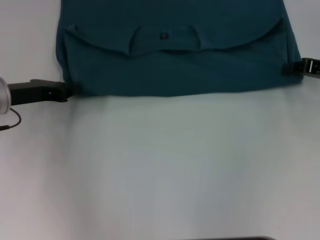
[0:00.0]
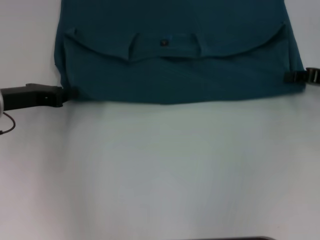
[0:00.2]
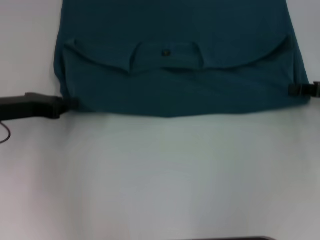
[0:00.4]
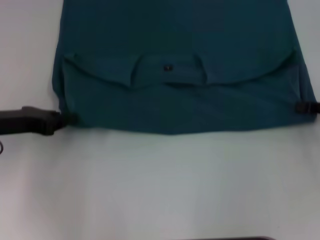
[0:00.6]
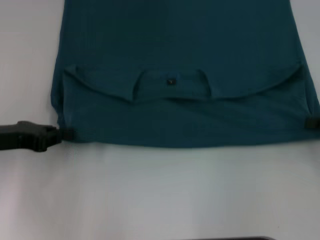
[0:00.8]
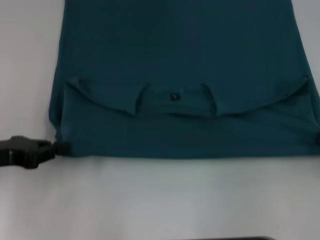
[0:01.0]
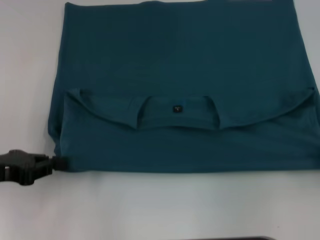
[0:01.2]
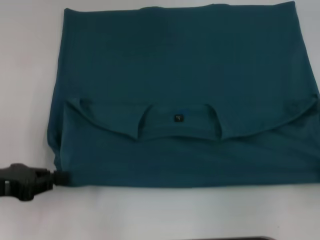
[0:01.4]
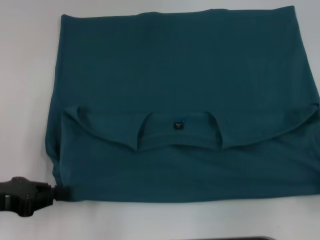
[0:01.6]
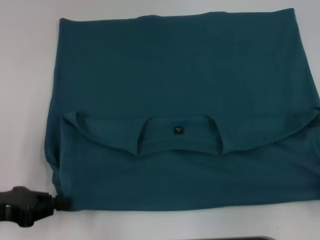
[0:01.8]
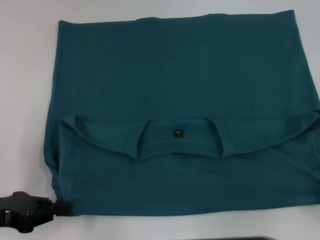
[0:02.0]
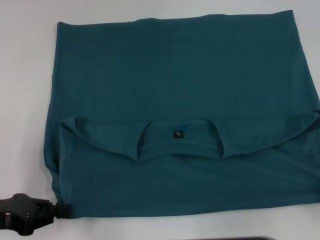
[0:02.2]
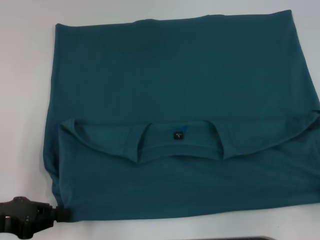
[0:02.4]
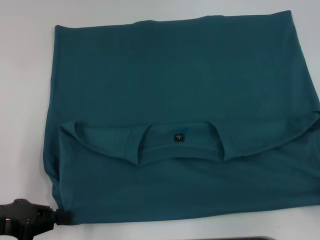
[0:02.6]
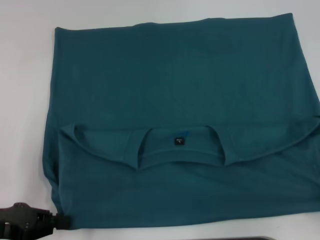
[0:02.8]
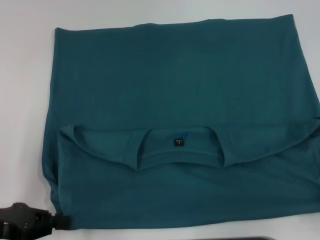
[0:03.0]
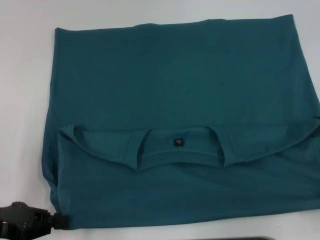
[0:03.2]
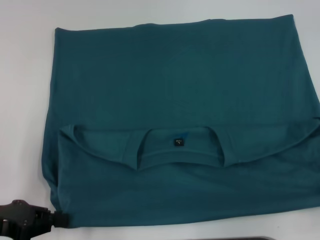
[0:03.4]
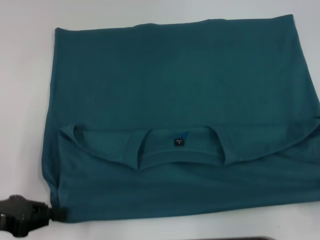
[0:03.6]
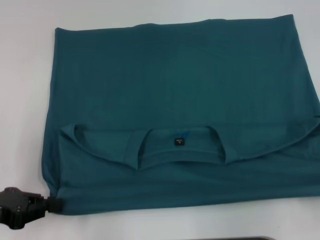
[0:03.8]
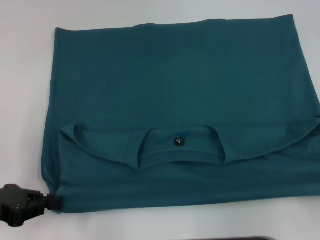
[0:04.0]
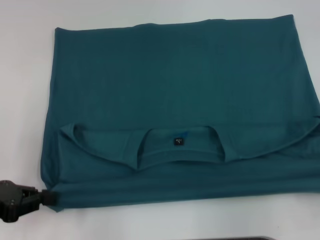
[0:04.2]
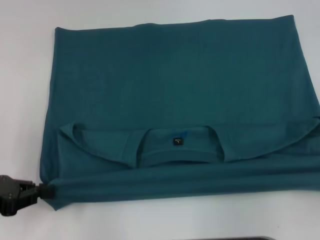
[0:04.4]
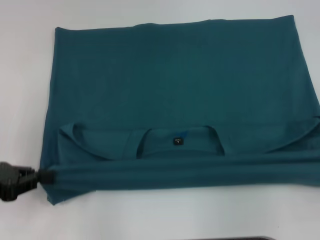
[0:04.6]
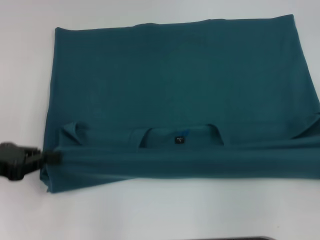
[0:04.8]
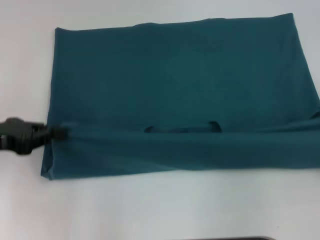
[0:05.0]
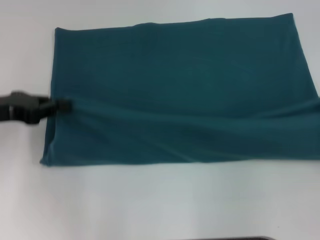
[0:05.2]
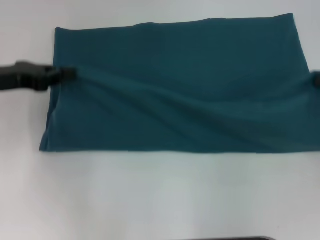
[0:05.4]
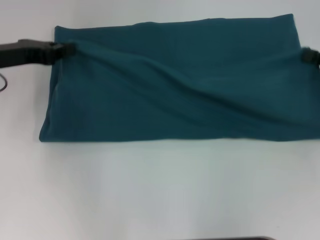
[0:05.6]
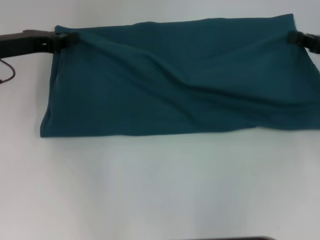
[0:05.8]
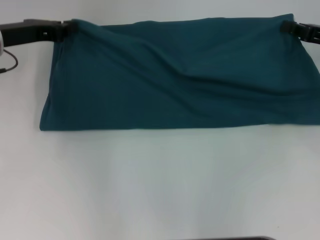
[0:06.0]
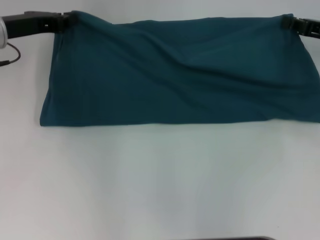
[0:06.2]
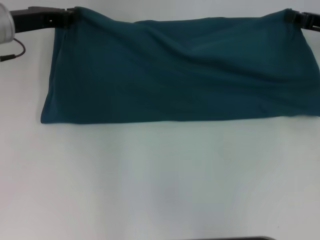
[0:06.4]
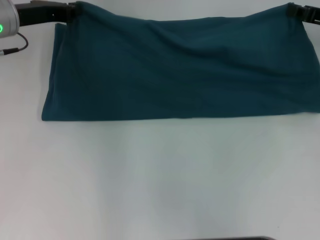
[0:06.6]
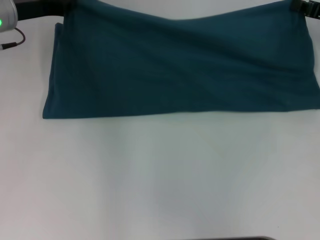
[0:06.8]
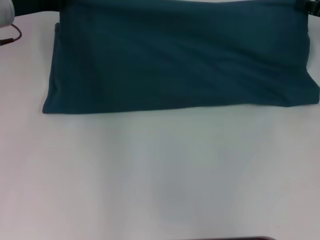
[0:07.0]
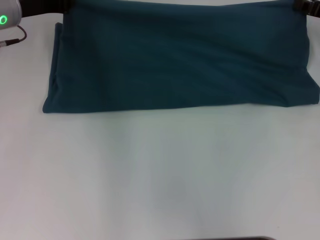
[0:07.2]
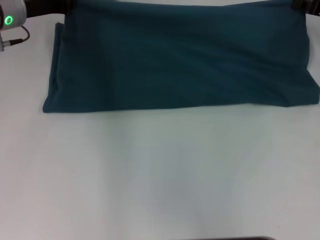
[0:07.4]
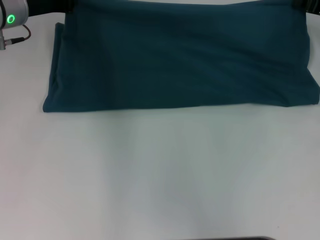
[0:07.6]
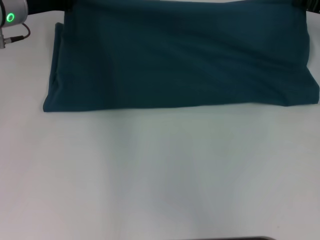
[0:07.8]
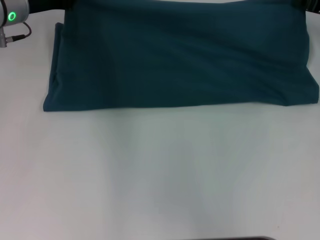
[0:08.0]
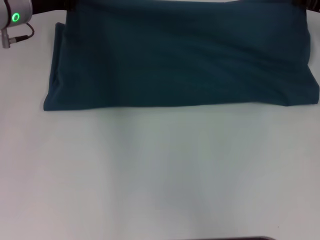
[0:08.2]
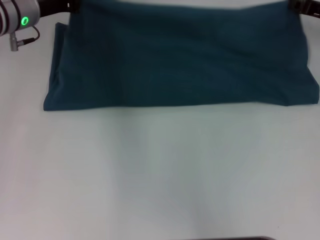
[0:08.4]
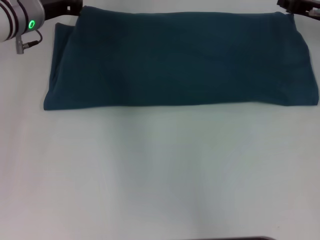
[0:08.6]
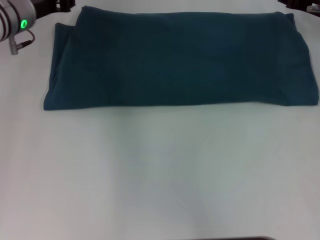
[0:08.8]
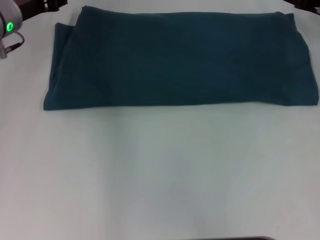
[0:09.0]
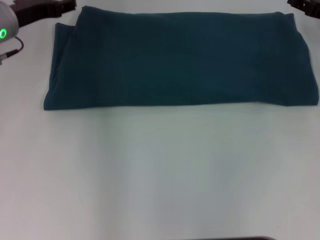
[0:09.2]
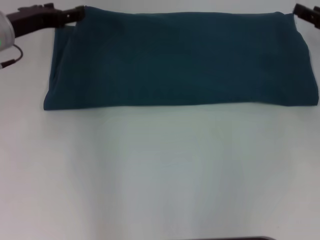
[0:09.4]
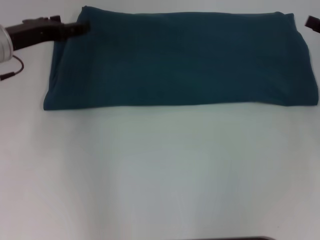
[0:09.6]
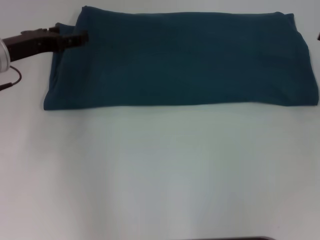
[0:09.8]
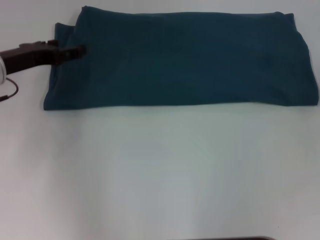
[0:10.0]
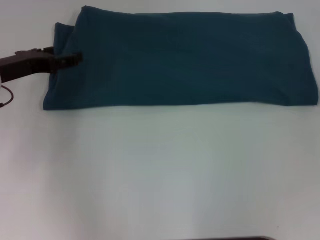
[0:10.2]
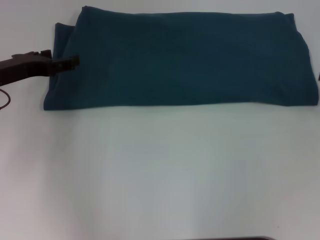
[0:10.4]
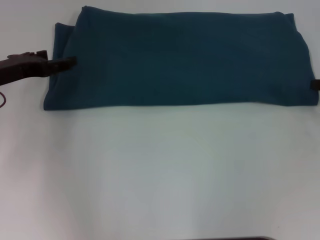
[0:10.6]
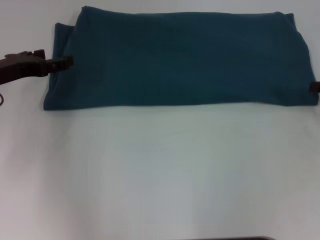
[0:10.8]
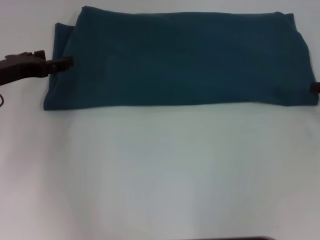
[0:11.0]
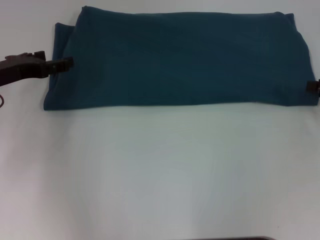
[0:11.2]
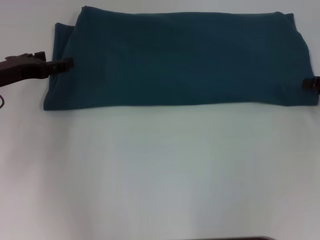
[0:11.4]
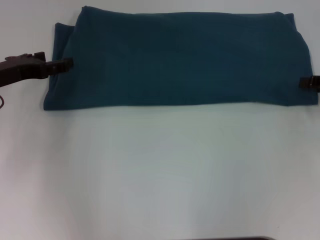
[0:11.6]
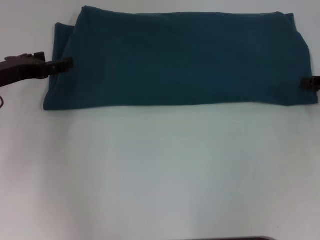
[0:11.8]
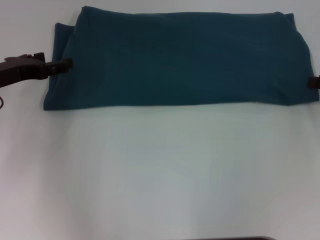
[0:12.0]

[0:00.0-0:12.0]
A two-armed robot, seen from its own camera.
Step, 0:00.0 to 0:03.4: Pull the clothes with your left hand.
Step, 0:00.0 to 0:03.4: Pull the clothes with your right hand.
Step, 0:03.6 to 0:09.0: Fold the clothes to the left.
Step, 0:03.6 to 0:09.0: Fold the clothes to the right.
0:00.0 to 0:01.6: The two grippers go roughly 15 cm backward.
0:03.0 to 0:04.4: The grippers stay close to where they were, moving slightly.
0:04.4 to 0:06.0: The two grippers go some 20 cm forward.
0:06.0 to 0:07.6: The right gripper ends up some 5 cm from where it was. Meanwhile the left gripper changes place by roughly 5 cm.
0:07.6 to 0:09.0: The left gripper opens up, while the right gripper opens up.
0:09.0 to 0:10.4: The right gripper heads backward and to the right, covering approximately 15 cm. Meanwhile the left gripper goes approximately 10 cm backward, and opens up.

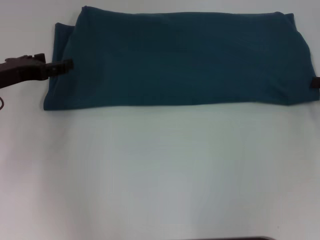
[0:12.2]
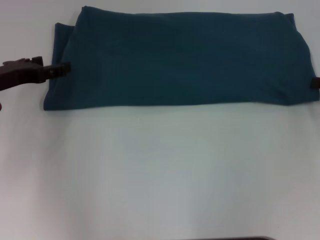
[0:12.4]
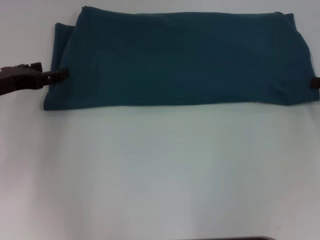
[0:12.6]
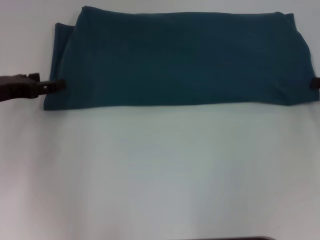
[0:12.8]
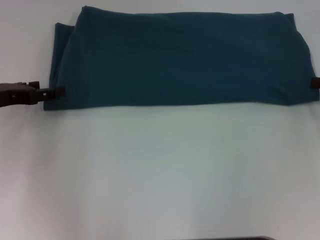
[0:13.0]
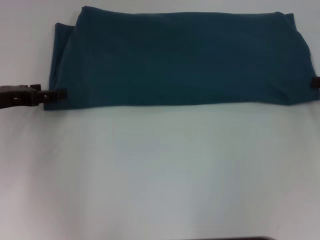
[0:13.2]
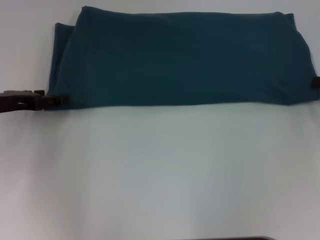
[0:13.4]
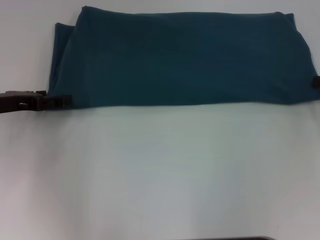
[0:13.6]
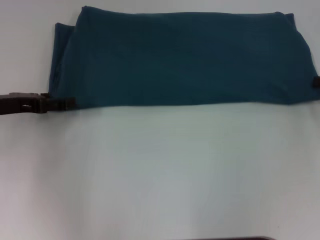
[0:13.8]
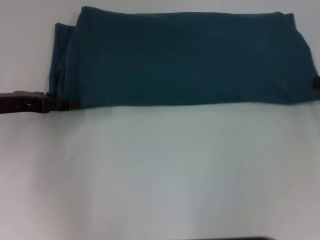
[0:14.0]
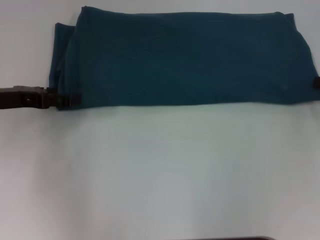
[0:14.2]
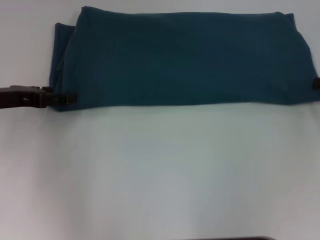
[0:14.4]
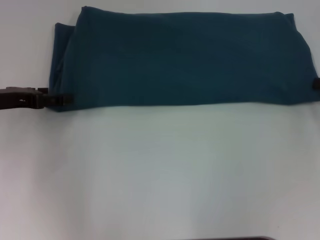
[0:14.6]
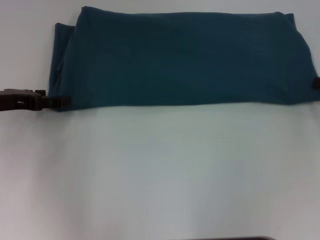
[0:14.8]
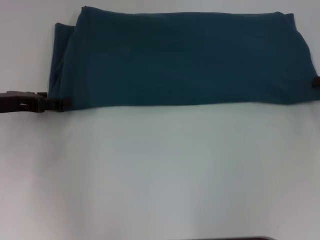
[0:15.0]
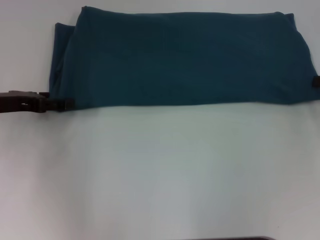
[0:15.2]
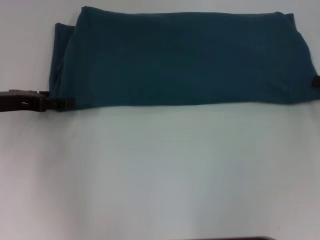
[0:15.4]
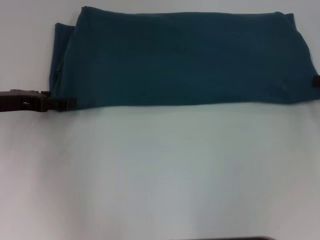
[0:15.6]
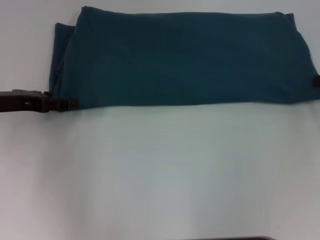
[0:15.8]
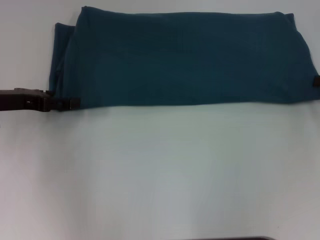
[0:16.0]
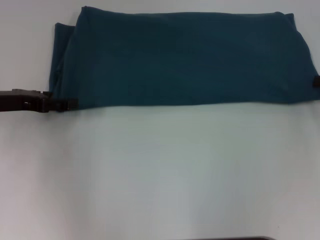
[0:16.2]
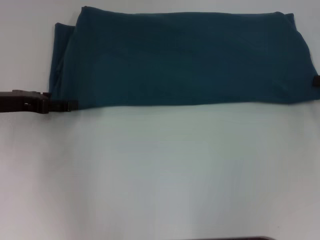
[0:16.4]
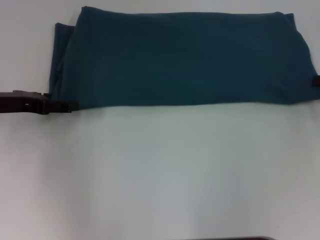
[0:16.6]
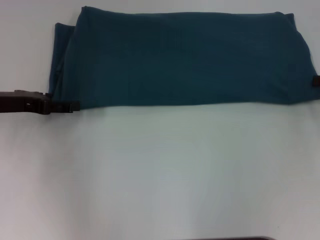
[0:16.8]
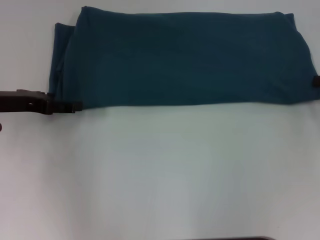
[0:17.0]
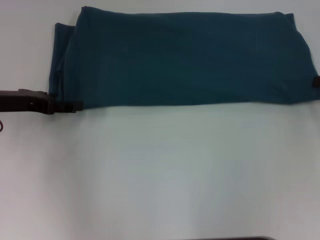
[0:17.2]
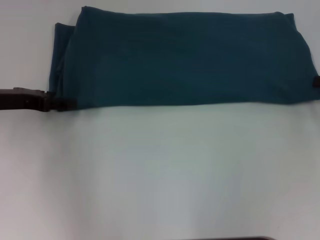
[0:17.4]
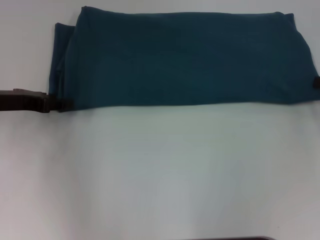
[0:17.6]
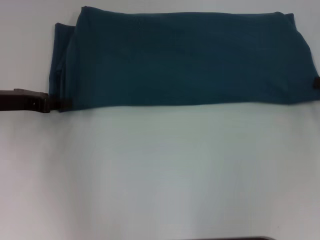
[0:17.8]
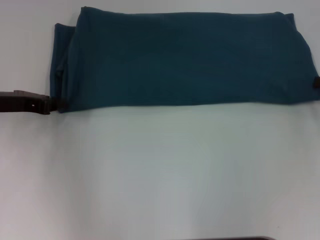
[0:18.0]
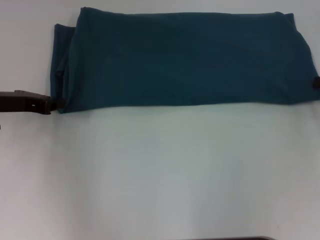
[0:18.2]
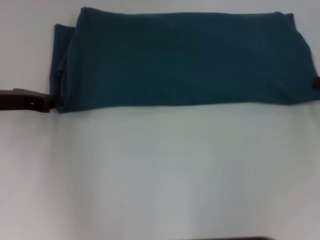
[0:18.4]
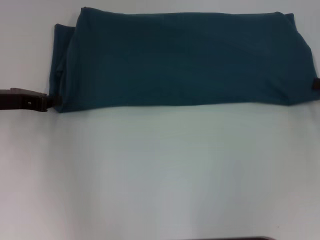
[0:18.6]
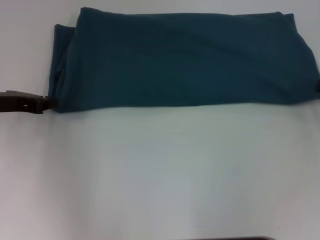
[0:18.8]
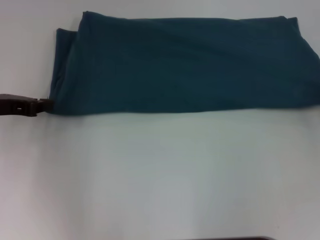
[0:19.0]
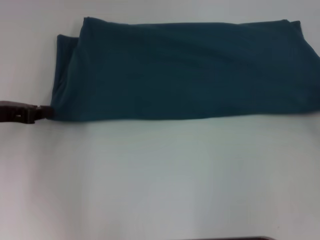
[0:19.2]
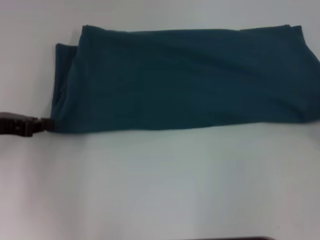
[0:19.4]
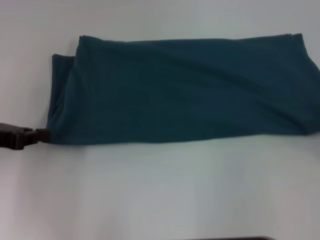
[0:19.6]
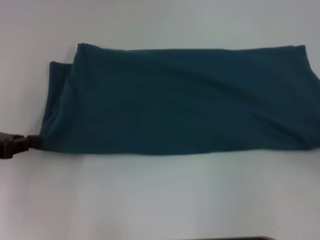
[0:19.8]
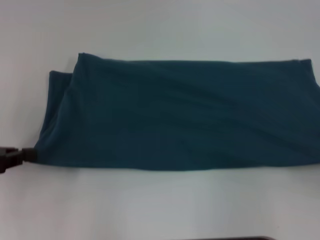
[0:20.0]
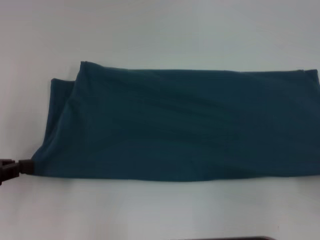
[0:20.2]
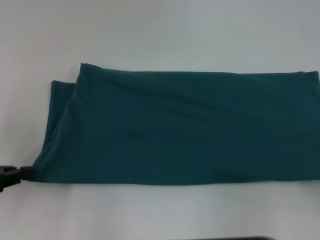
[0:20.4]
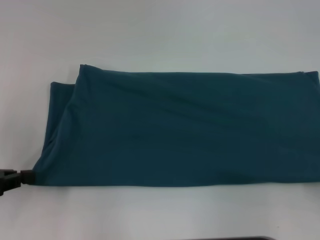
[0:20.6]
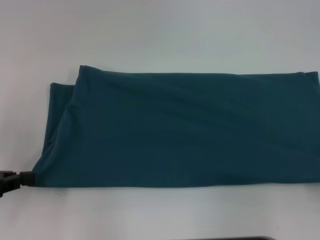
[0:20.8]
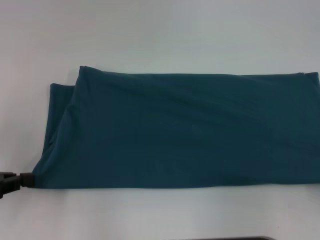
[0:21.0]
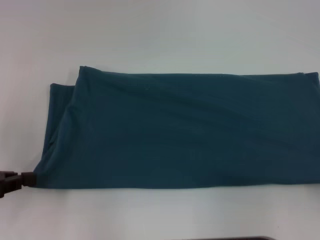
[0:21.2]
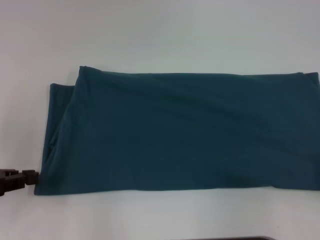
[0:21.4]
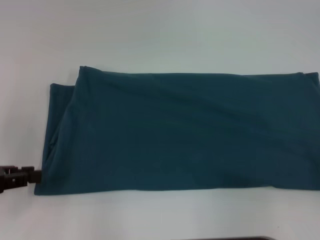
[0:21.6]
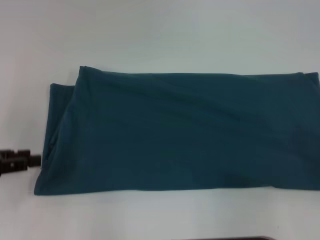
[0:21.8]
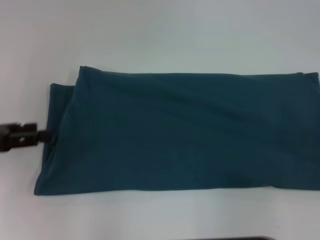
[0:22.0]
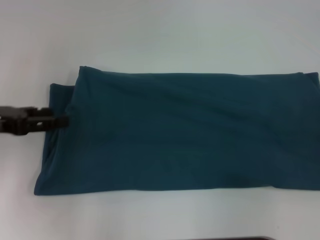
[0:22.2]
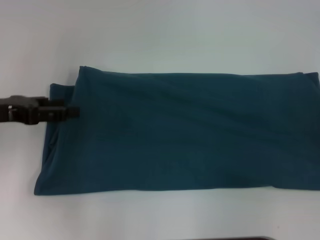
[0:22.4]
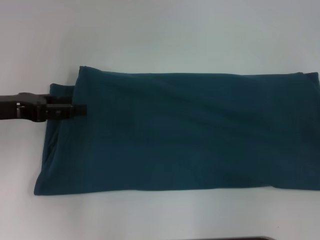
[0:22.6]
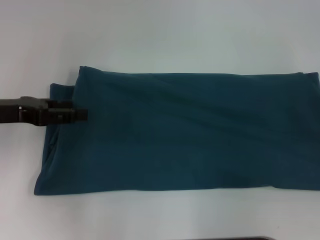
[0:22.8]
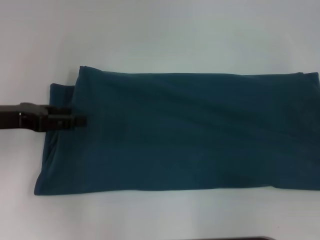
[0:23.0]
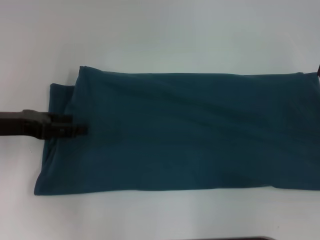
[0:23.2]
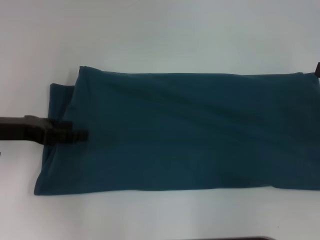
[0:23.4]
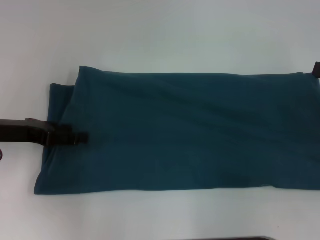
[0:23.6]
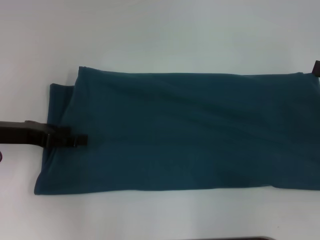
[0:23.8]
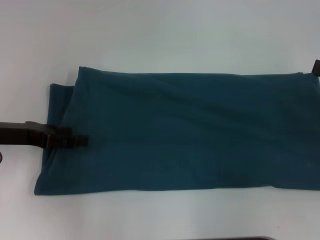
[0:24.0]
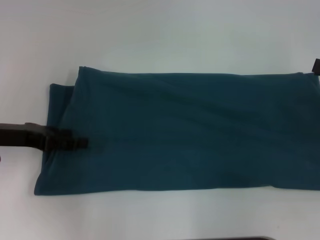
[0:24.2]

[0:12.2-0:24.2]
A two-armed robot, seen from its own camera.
Step, 0:12.2 to 0:21.2: Pull the clothes with your left hand.
Step, 0:12.2 to 0:21.2: Pull the clothes with your right hand.
0:12.2 to 0:13.8: There are only small adjustments of the grippers.
0:15.2 to 0:16.6: The two grippers keep their place.
0:18.2 to 0:19.8: The right gripper travels backward by about 10 cm, while the left gripper is displaced backward and to the left by about 10 cm.
0:19.8 to 0:21.2: The right gripper shifts approximately 5 cm backward.
0:21.2 to 0:22.6: The right gripper shifts some 10 cm forward and upward, and opens its fingers. The left gripper is displaced forward and to the right by approximately 10 cm, and opens.
0:22.6 to 0:24.2: The grippers move only a little.
